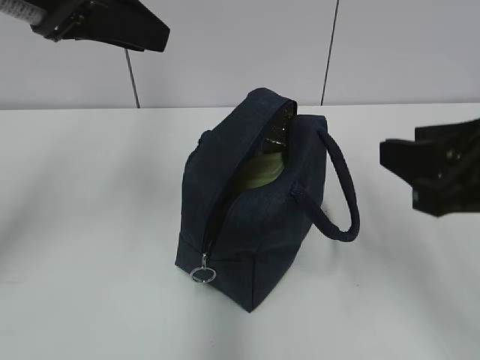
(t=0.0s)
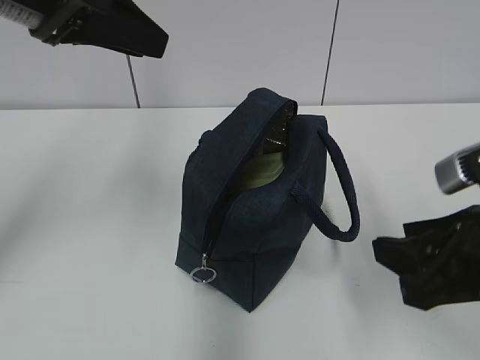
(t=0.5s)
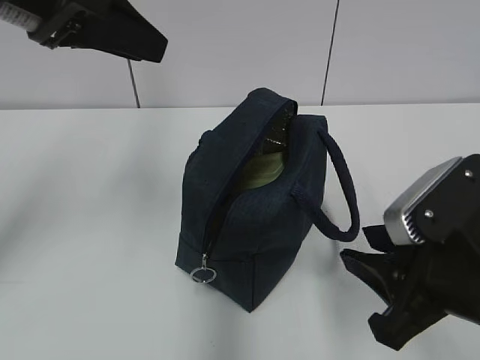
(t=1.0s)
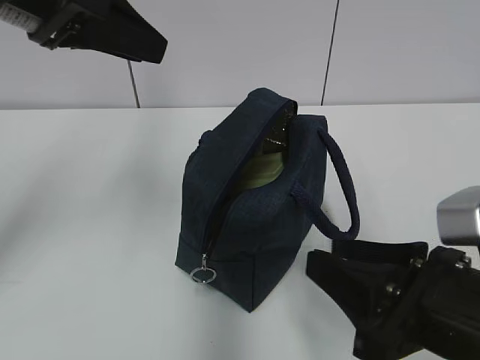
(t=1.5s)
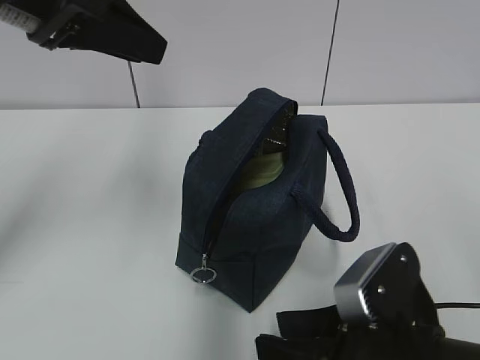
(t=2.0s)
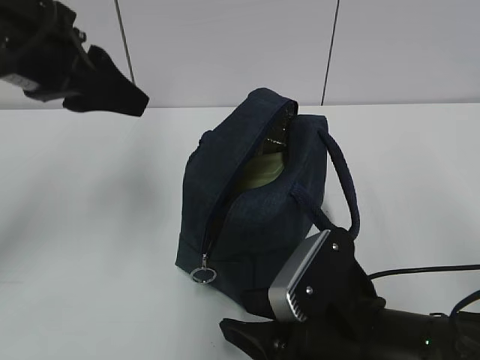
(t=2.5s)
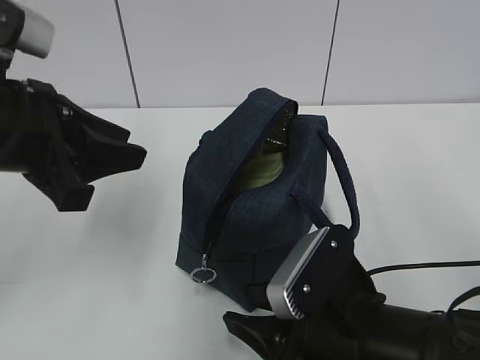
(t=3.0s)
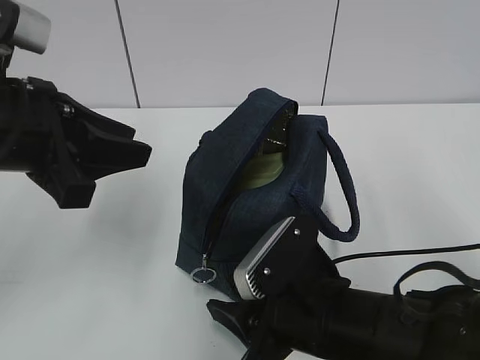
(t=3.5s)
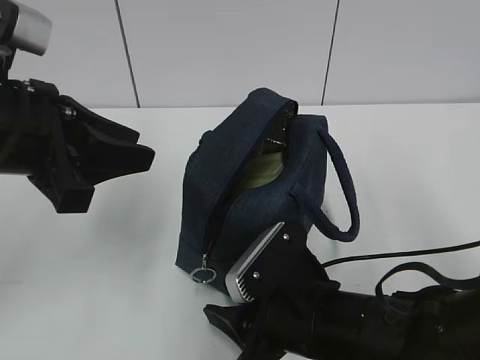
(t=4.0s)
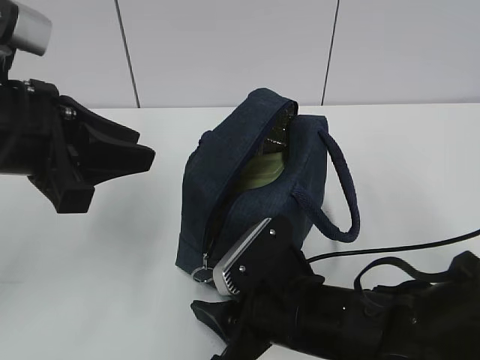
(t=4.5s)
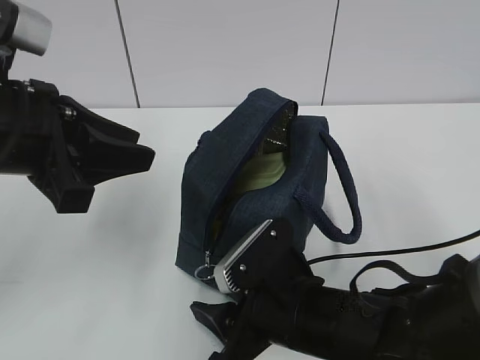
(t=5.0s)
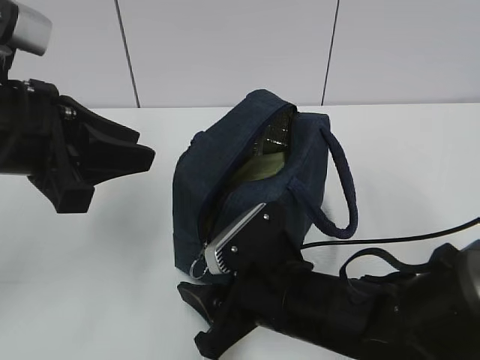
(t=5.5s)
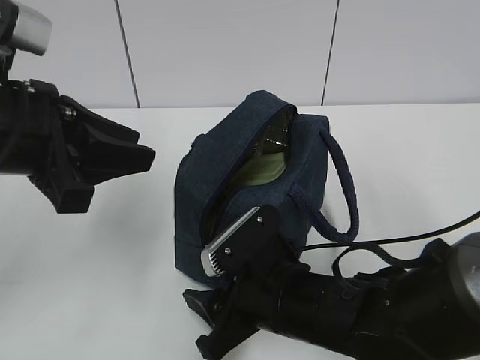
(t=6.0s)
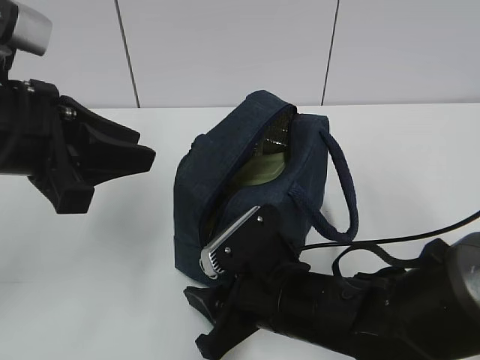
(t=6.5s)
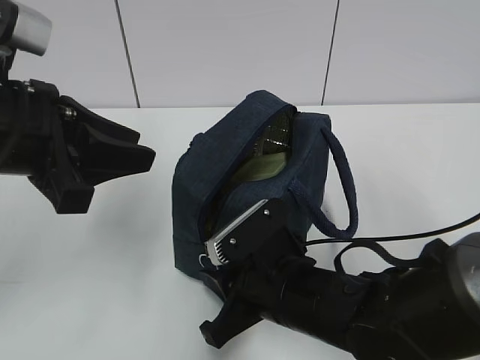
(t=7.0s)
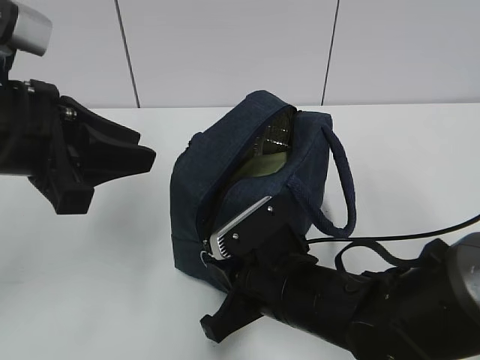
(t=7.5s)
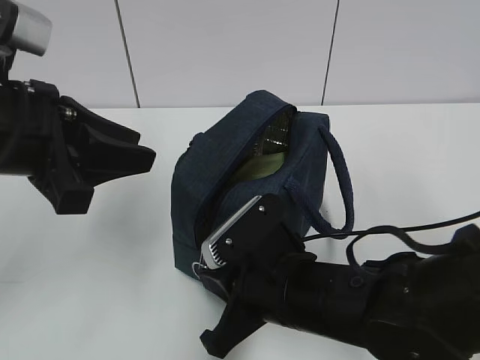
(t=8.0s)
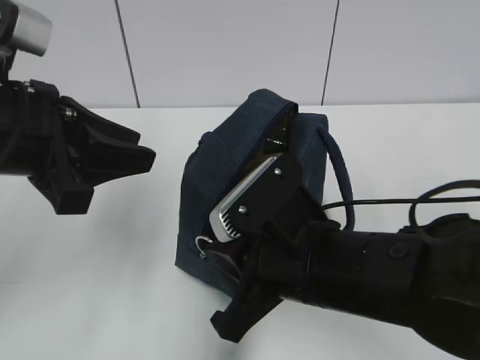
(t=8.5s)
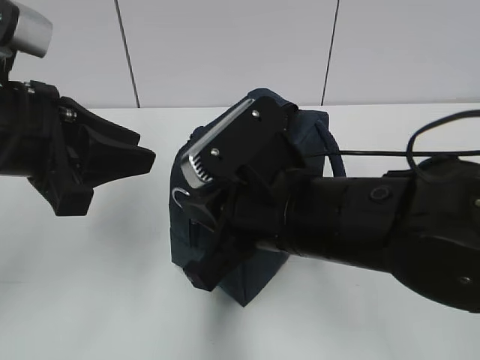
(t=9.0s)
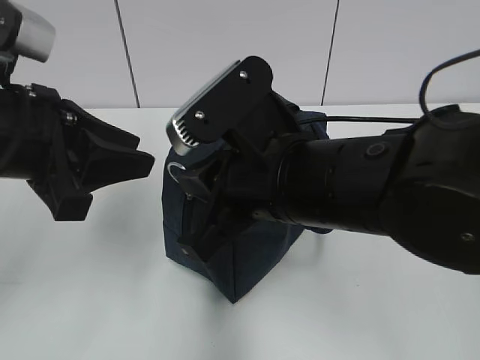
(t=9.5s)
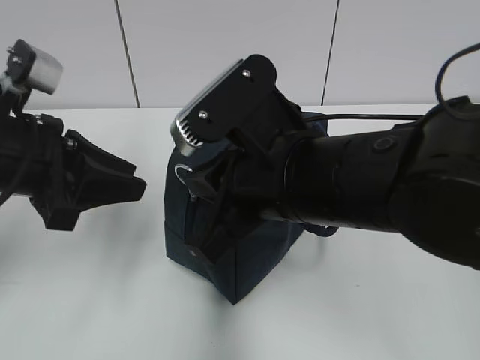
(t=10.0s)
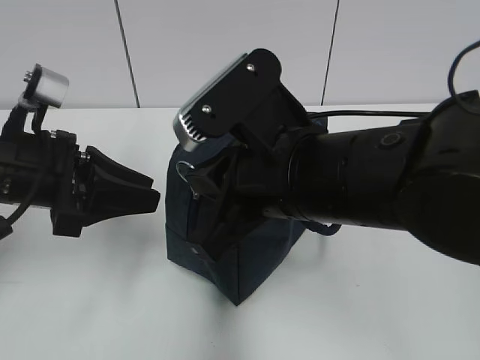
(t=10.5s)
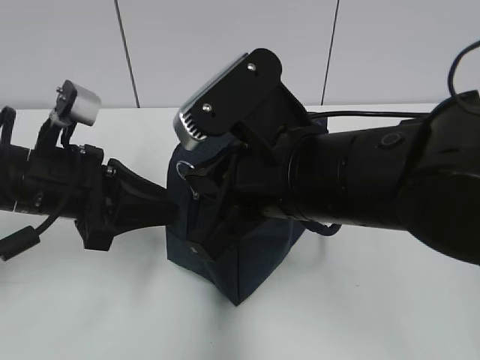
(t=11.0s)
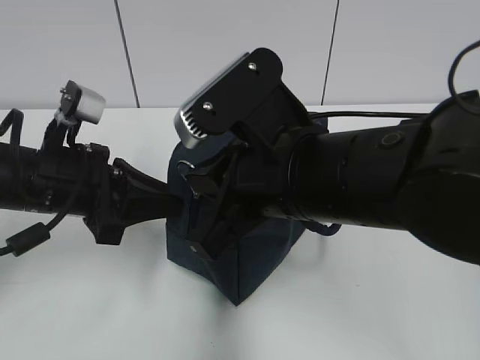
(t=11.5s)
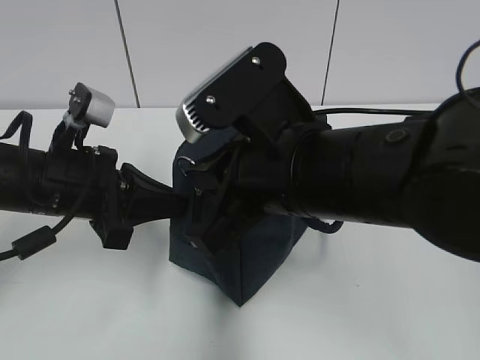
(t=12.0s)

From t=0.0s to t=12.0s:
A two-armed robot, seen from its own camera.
Step, from t=0.0s to t=11.5s: Grab the lunch bag with your left hand.
From t=0.0s to t=2.0s: The right gripper shifts approximately 15 cm downward and to the left.
From t=2.0s to t=4.0s: The right gripper is displaced forward and to the left by approximately 10 cm. Meanwhile the left gripper travels downward and backward by some 10 cm.
From t=4.0s to t=6.0s: The grippers make only small movements.
From t=6.0s to t=8.0s: The right gripper closes.
From t=8.0s to t=10.0s: The right gripper is displaced upward by approximately 15 cm.
From t=10.0s to t=12.0s: The left gripper moves approximately 5 cm, and closes up.

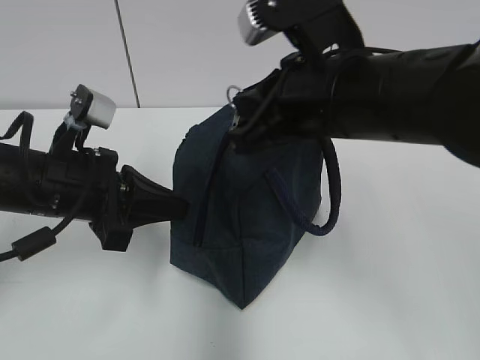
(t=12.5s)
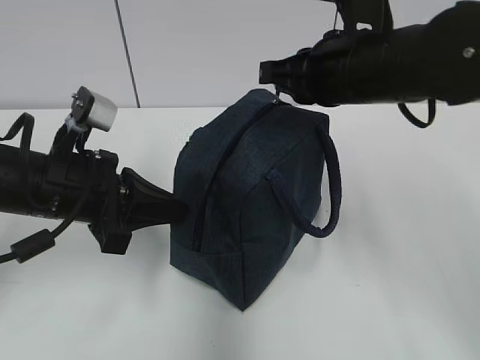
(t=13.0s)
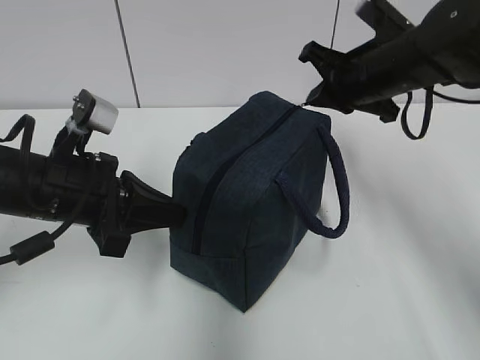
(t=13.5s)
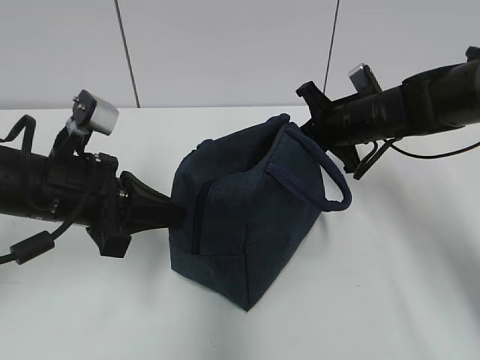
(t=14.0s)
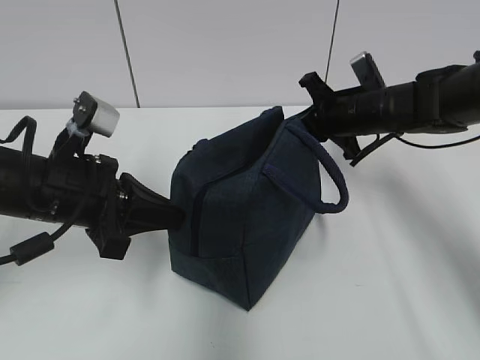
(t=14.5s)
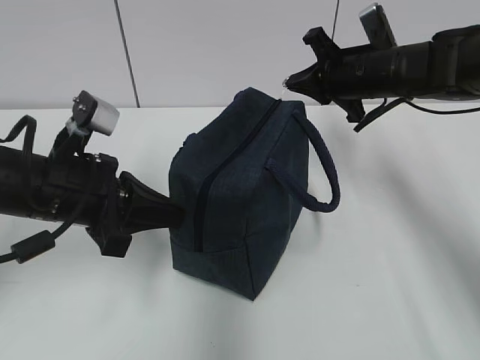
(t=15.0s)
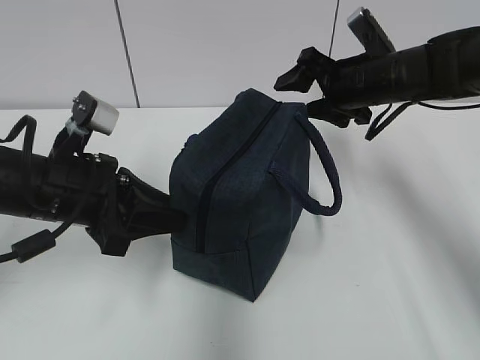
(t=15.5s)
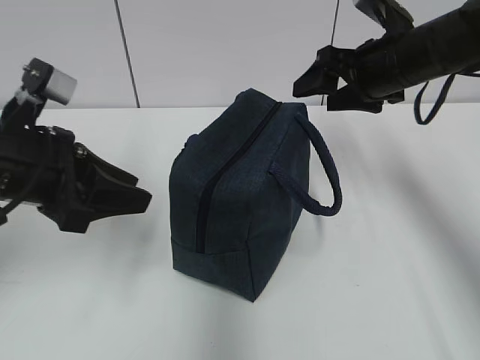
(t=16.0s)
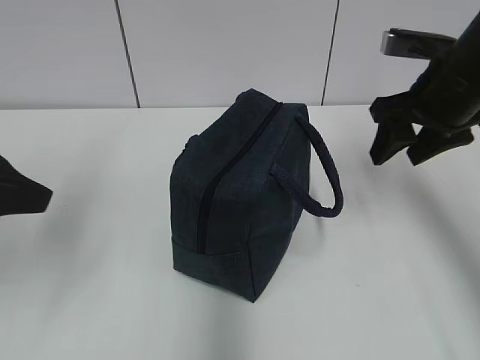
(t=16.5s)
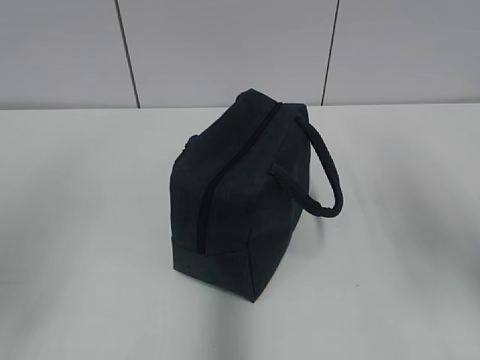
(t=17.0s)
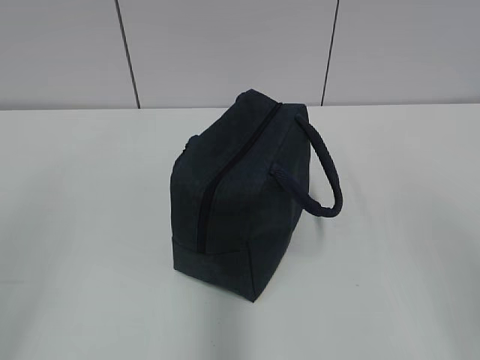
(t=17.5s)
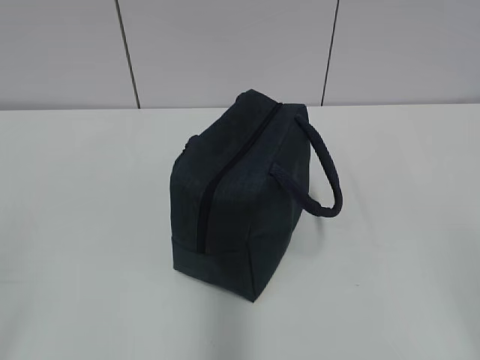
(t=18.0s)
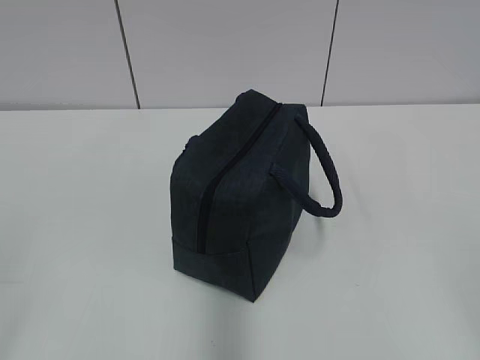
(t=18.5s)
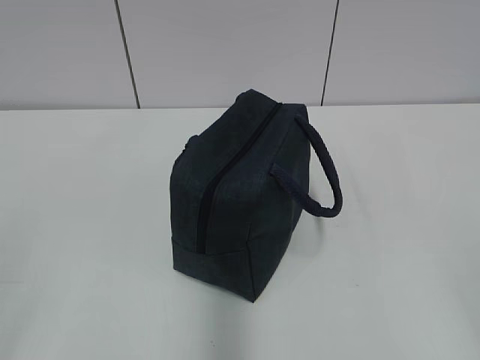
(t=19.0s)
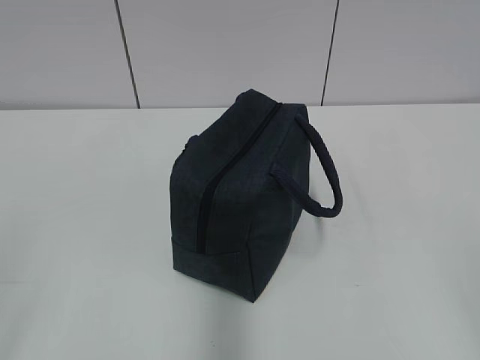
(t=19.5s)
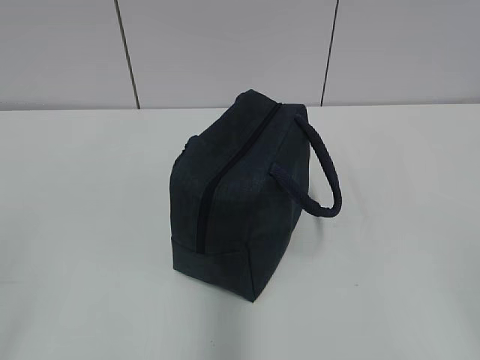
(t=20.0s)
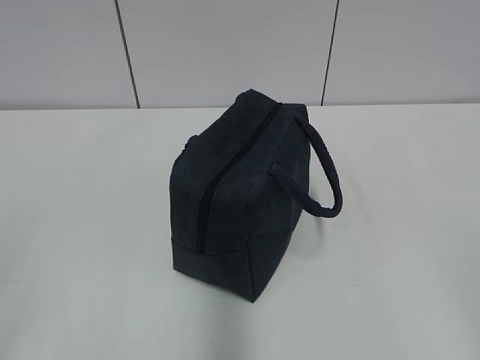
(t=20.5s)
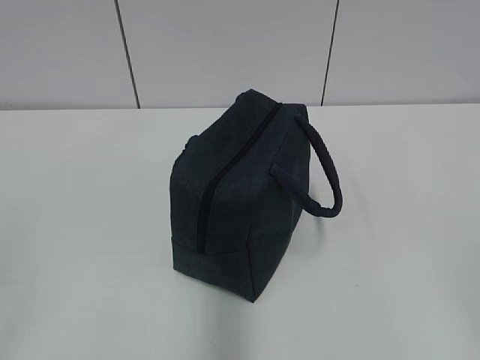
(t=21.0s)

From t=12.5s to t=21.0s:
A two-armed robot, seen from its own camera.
Step, from t=12.5s to t=15.0s: Pull the zipper with your right hand.
From t=12.5s to t=14.5s: The right gripper shifts approximately 25 cm forward, downward and to the right.
From t=14.5s to t=16.5s: The right gripper shifts some 15 cm upward, backward and to the right, and opens, while the left gripper goes about 15 cm upward, to the left and backward, and opens.
From t=16.5s to t=19.0s: The left gripper shifts about 20 cm backward; the right gripper travels backward by some 35 cm.
